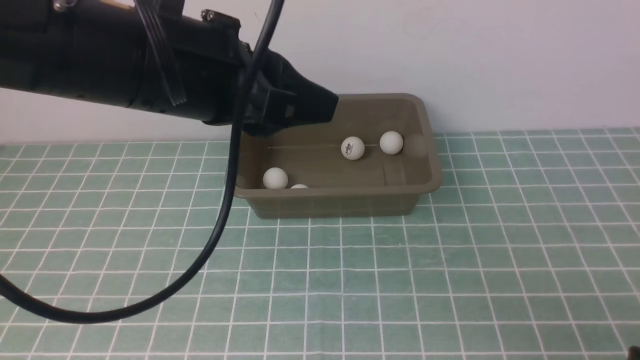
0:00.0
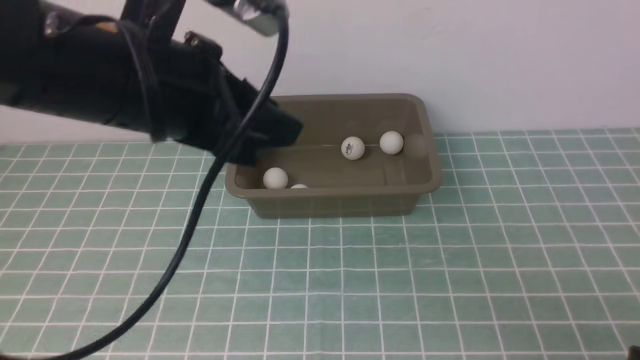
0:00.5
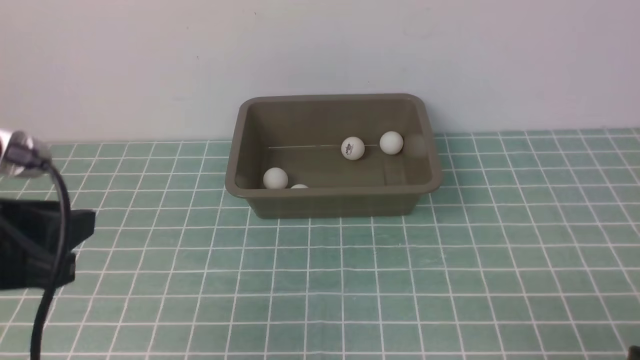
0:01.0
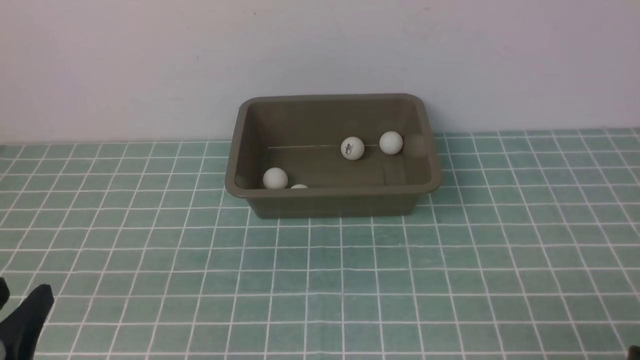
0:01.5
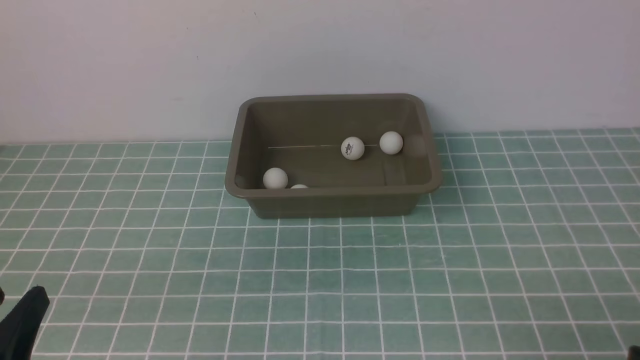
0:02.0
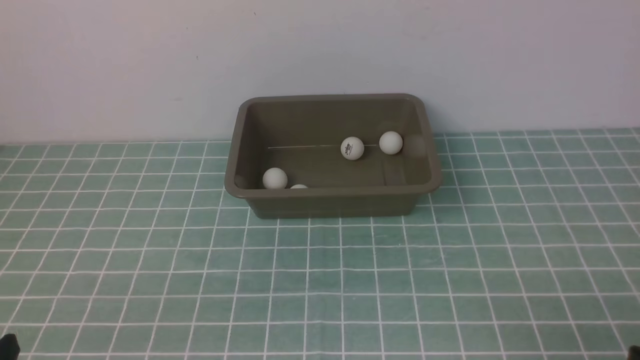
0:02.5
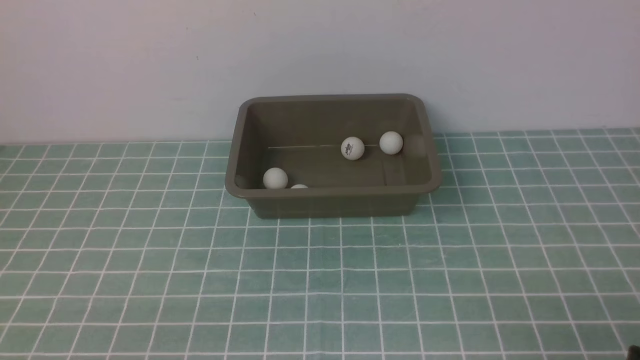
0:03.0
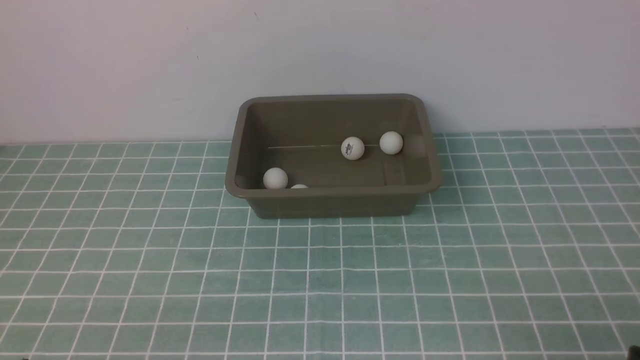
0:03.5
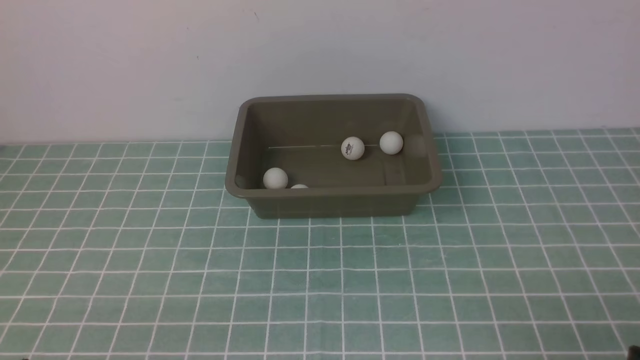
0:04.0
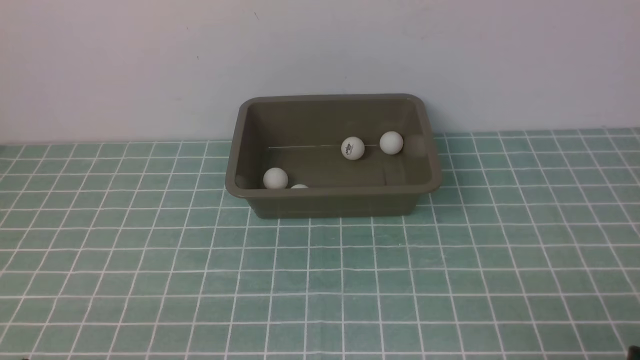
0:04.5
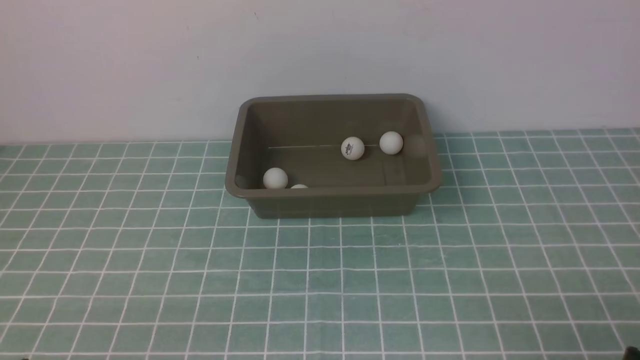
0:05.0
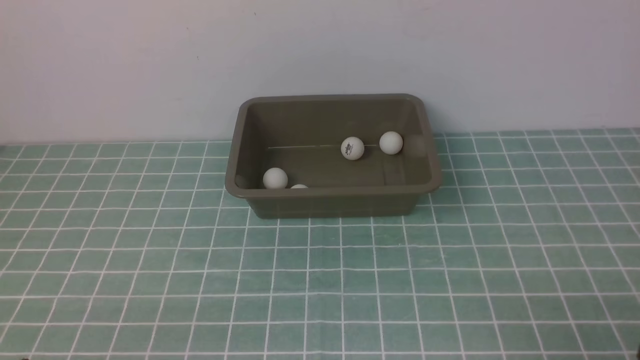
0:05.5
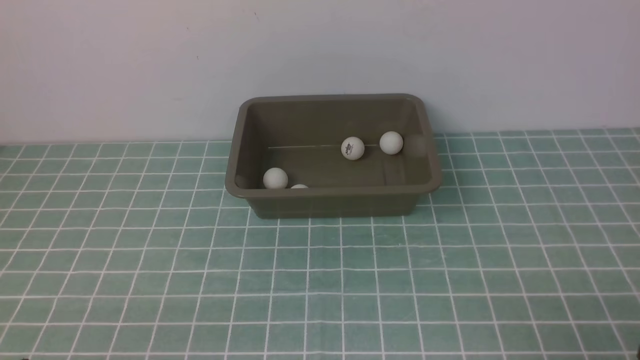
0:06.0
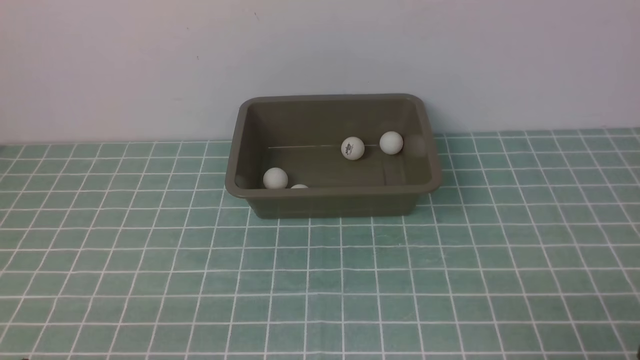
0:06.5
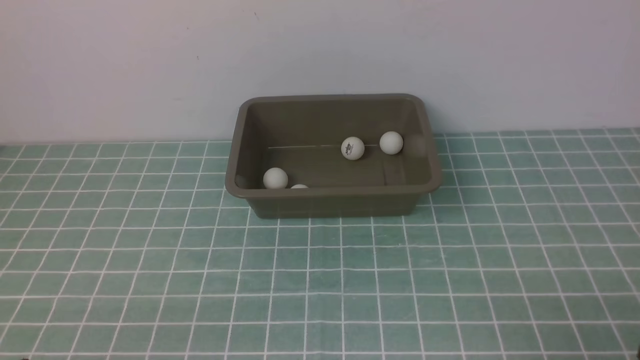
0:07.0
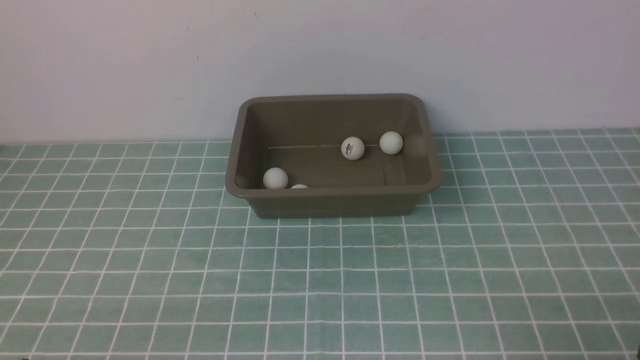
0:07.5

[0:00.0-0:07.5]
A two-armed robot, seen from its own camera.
0:00.0 to 0:02.0: The left gripper shifts approximately 30 cm backward, downward and to the left.
0:02.0 to 0:04.0: The grippers make only small movements.
0:05.5 to 0:07.5: Both grippers stay put.

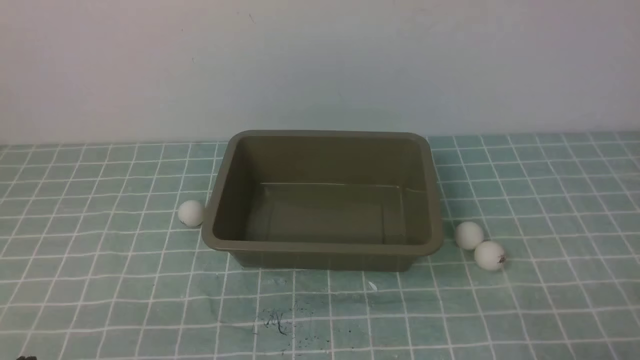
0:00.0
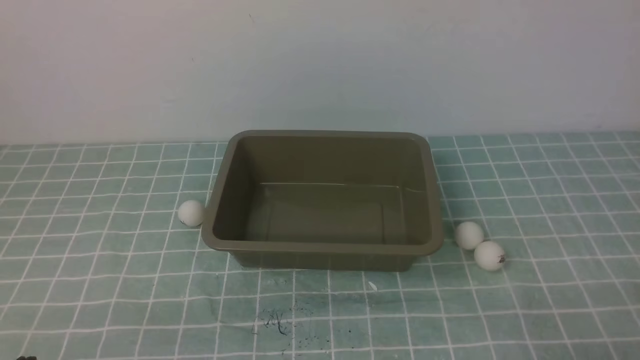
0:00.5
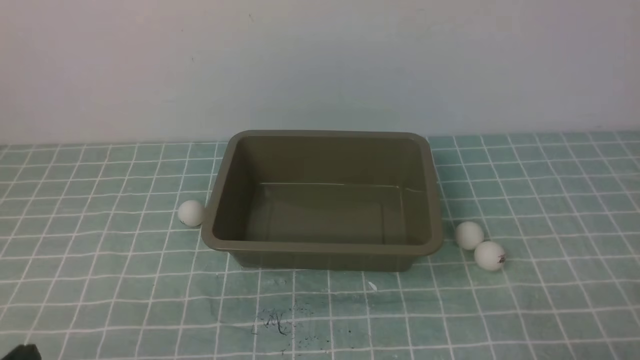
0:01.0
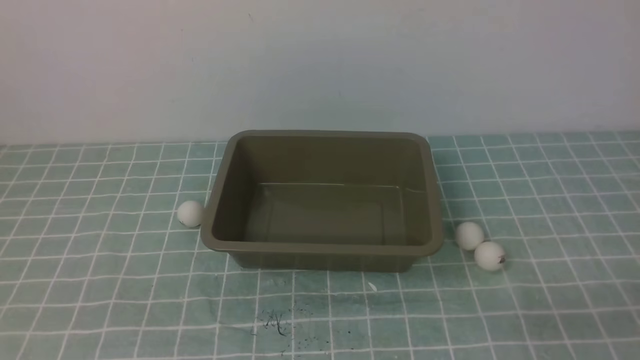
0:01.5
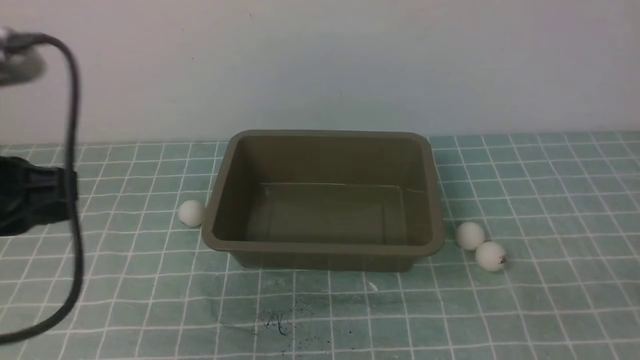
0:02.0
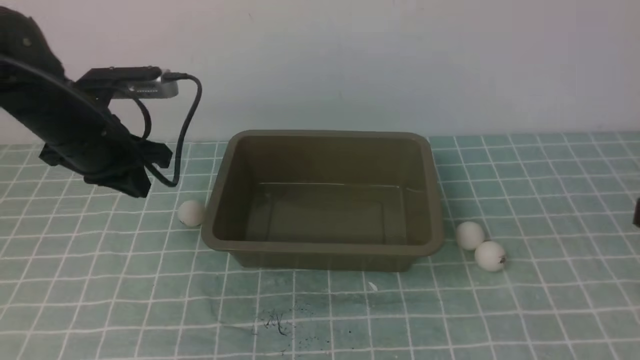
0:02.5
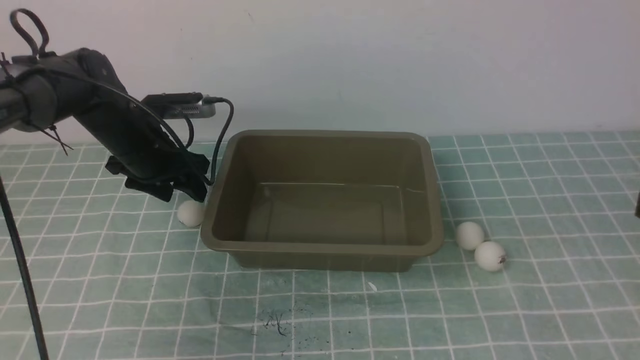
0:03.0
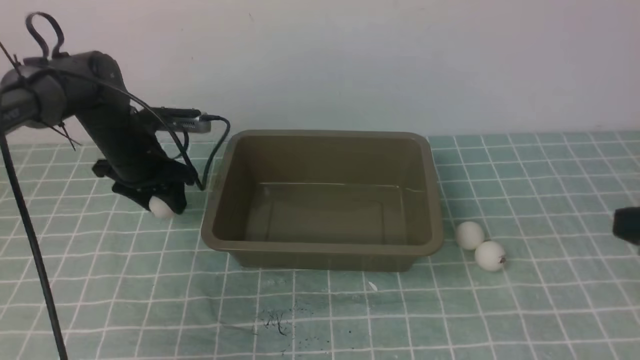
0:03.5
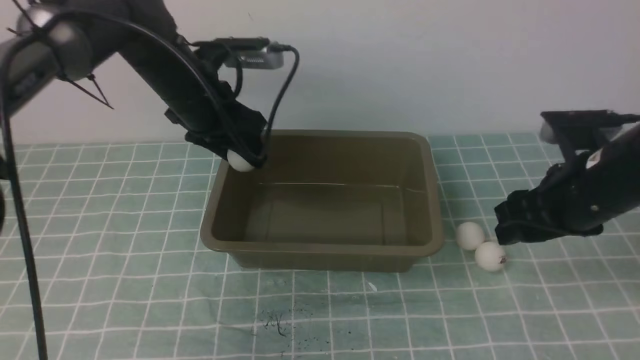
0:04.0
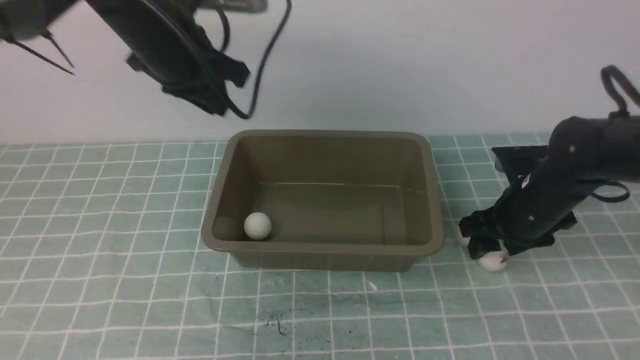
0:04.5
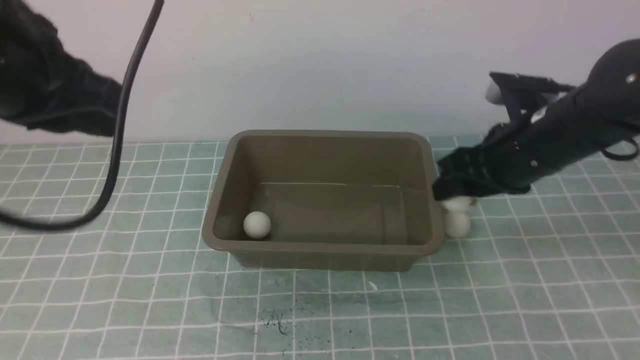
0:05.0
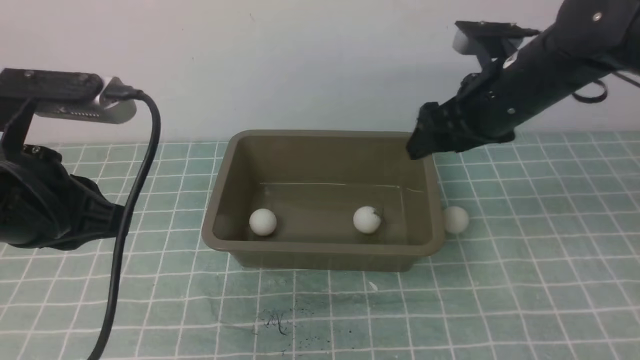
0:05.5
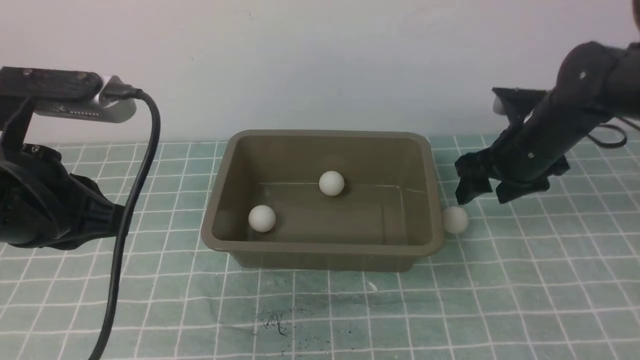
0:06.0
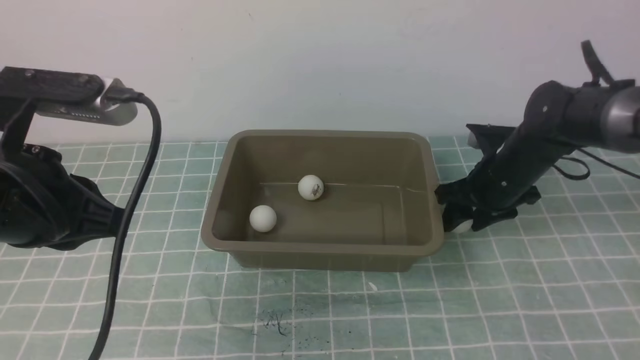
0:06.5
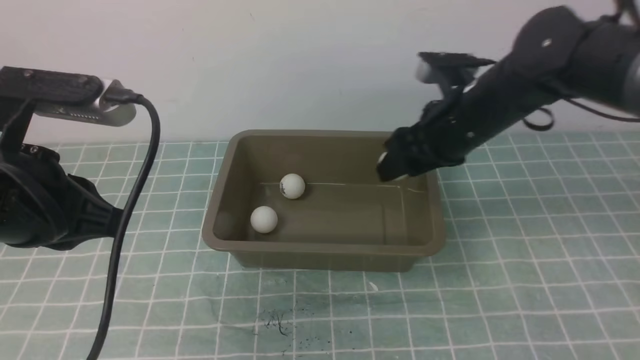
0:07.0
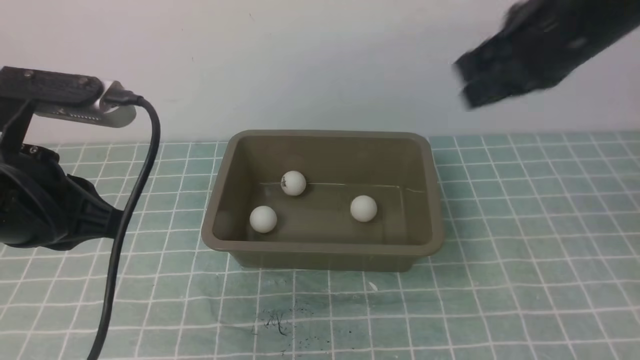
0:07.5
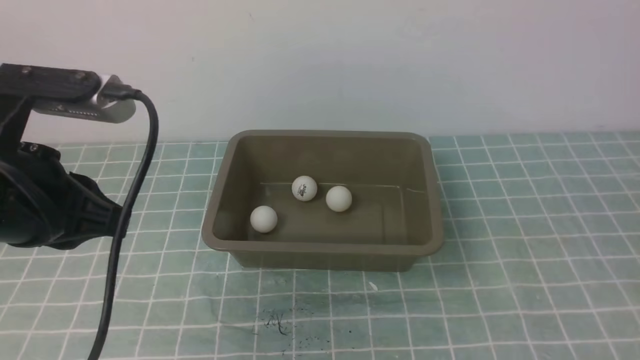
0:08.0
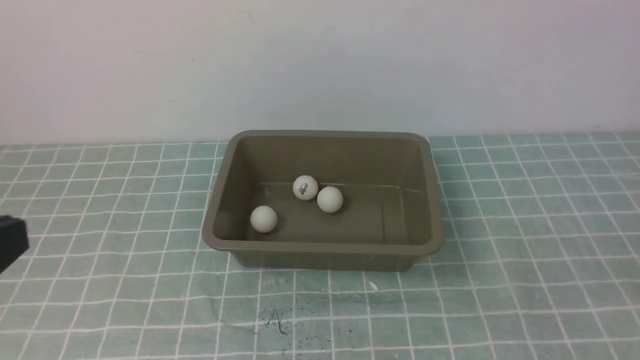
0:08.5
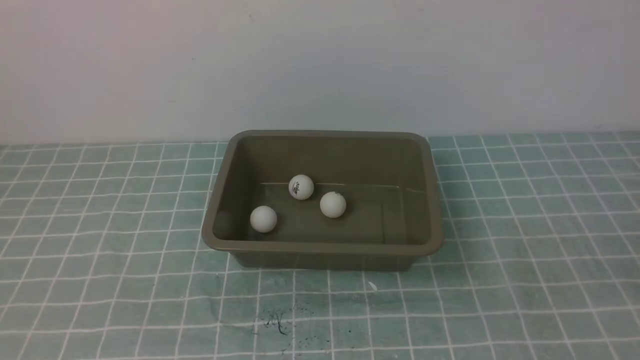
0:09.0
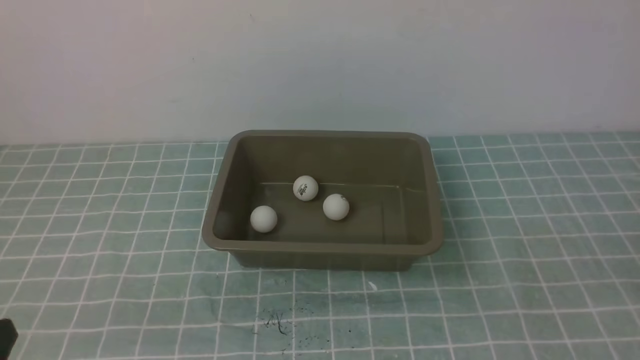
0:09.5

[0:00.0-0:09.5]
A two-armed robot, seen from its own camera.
Step, 0:00.0 to 0:03.5: use the left arm to clamp the table tennis ball closest to it.
Step, 0:04.0 to 0:04.5: use the left arm to put the table tennis ball into the box.
Step, 0:05.5 to 0:06.5: use the right arm to clamp the table tennis ball closest to it.
0:02.0 to 0:04.0: Both grippers move forward, approximately 25 cm. The right gripper opens up. Meanwhile the left gripper opens.
0:04.0 to 0:05.5: The left gripper heads backward, covering roughly 25 cm, and closes its fingers. Meanwhile the right gripper shifts approximately 10 cm forward and to the left, reaches about 10 cm downward, then returns, and opens its fingers.
0:05.5 to 0:07.5: The right gripper is displaced upward by roughly 10 cm, and closes.
0:07.5 to 0:09.5: The right gripper moves backward and to the right, some 35 cm, and closes its fingers. Meanwhile the left gripper goes some 20 cm backward and downward.
